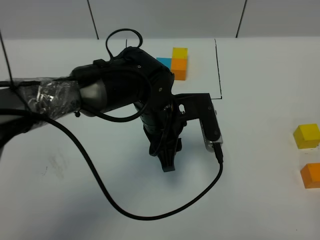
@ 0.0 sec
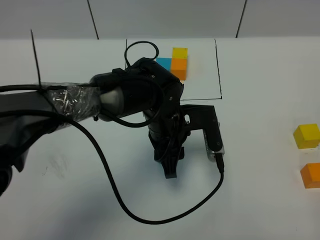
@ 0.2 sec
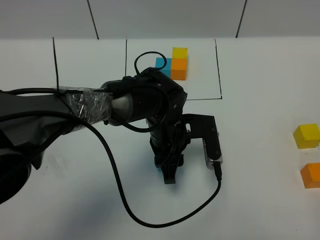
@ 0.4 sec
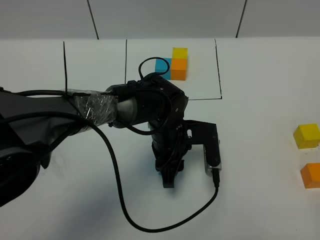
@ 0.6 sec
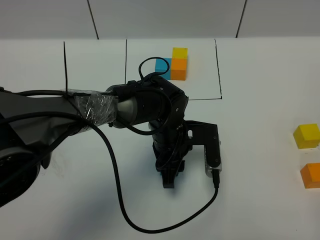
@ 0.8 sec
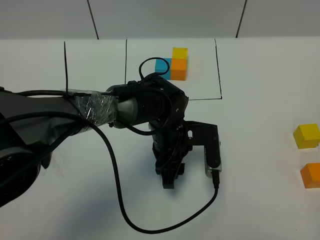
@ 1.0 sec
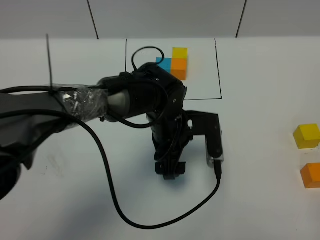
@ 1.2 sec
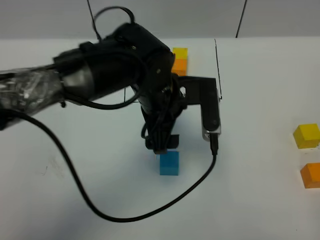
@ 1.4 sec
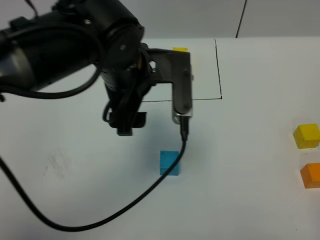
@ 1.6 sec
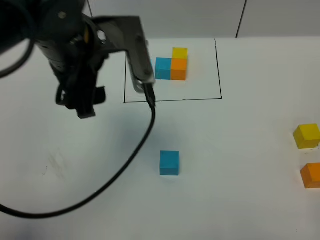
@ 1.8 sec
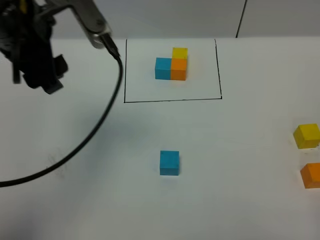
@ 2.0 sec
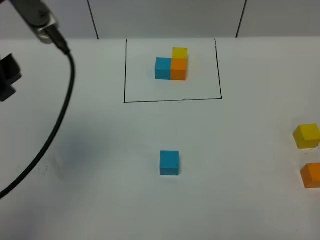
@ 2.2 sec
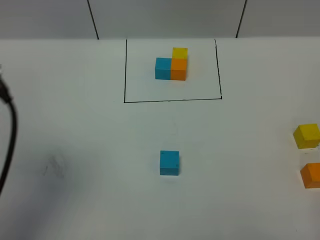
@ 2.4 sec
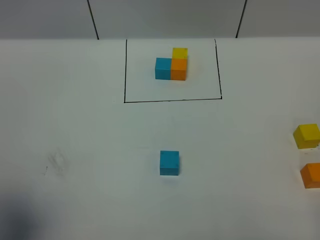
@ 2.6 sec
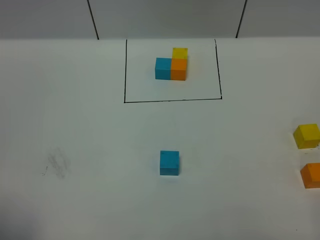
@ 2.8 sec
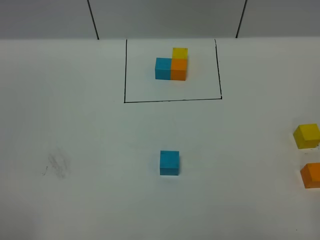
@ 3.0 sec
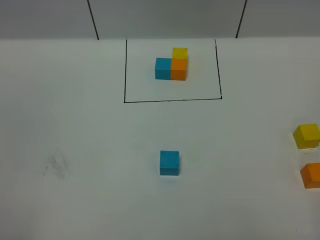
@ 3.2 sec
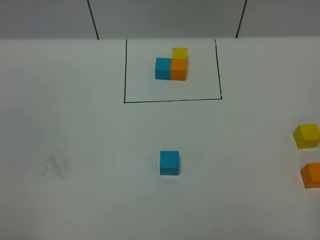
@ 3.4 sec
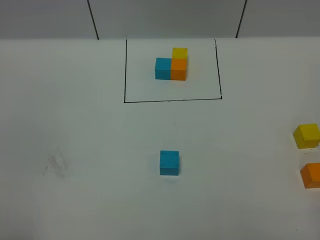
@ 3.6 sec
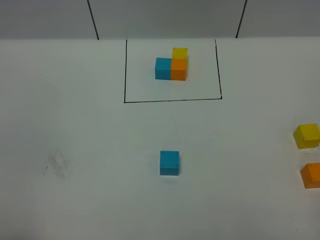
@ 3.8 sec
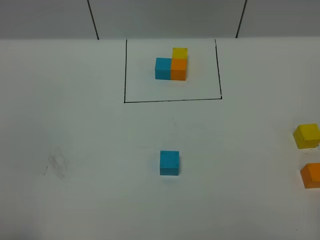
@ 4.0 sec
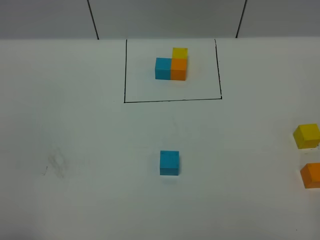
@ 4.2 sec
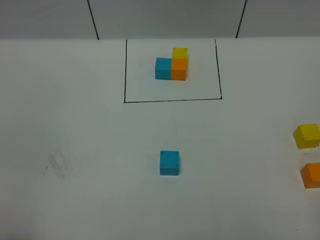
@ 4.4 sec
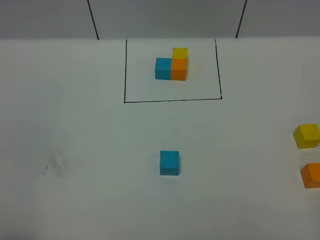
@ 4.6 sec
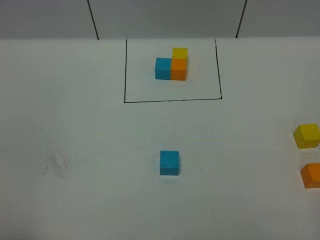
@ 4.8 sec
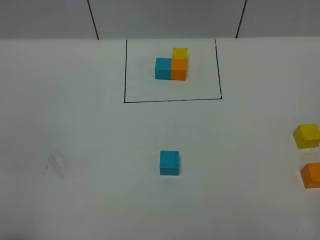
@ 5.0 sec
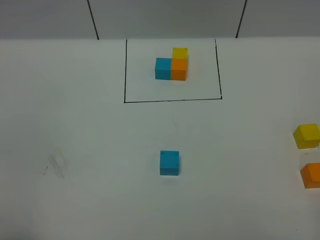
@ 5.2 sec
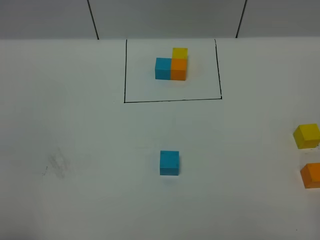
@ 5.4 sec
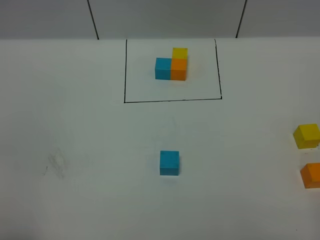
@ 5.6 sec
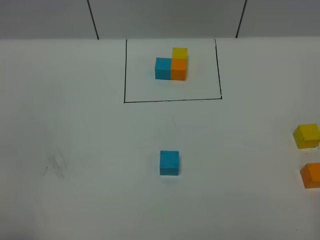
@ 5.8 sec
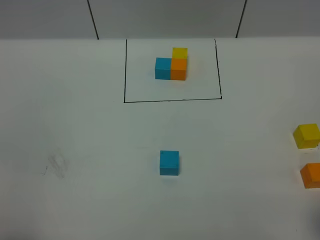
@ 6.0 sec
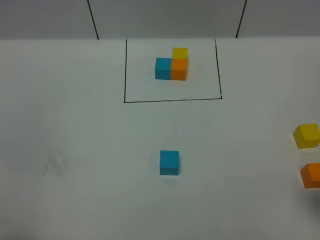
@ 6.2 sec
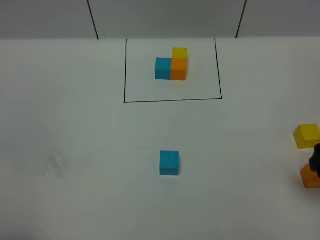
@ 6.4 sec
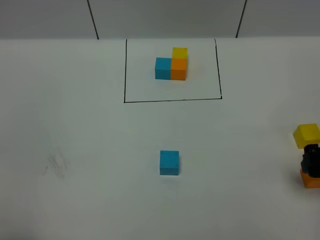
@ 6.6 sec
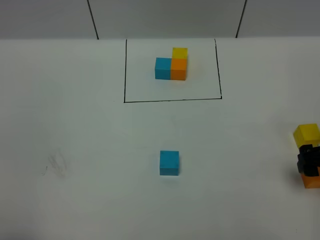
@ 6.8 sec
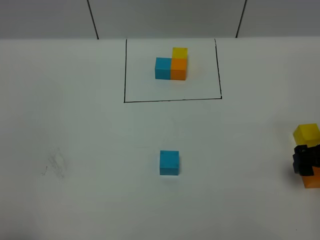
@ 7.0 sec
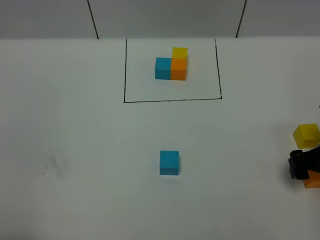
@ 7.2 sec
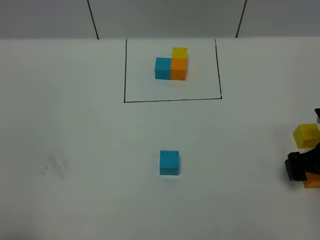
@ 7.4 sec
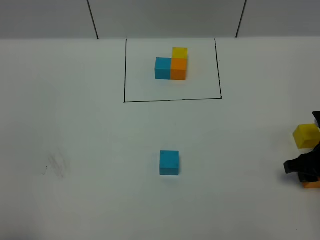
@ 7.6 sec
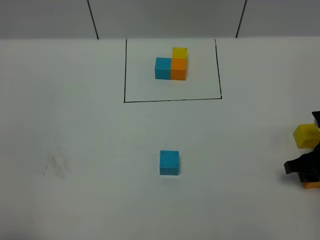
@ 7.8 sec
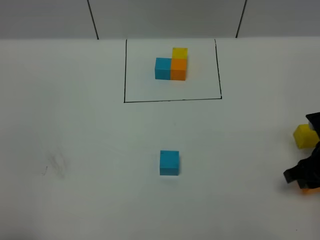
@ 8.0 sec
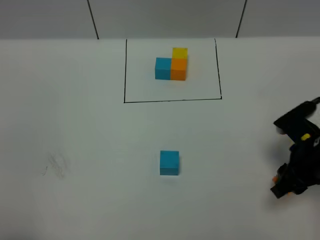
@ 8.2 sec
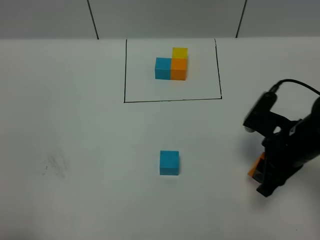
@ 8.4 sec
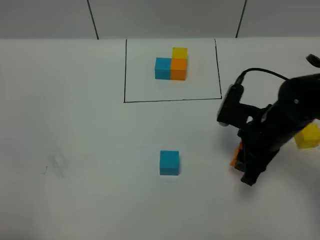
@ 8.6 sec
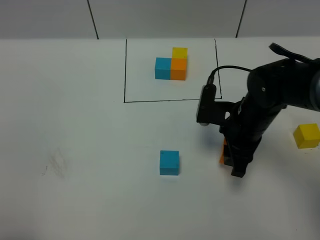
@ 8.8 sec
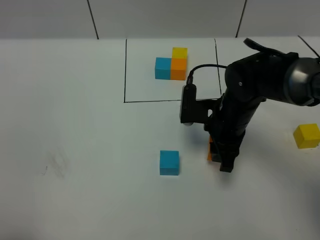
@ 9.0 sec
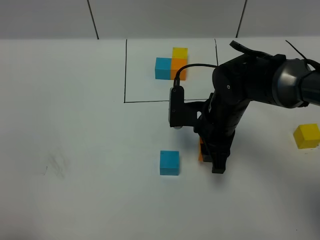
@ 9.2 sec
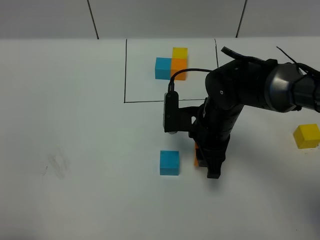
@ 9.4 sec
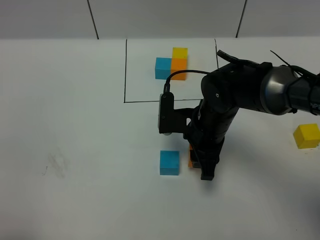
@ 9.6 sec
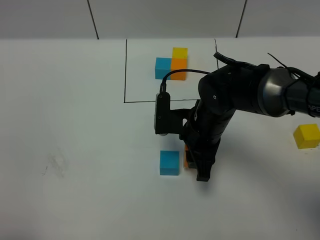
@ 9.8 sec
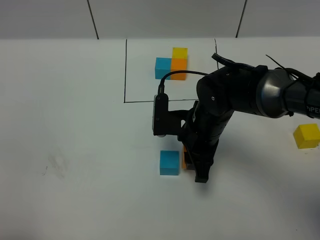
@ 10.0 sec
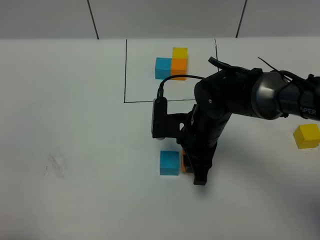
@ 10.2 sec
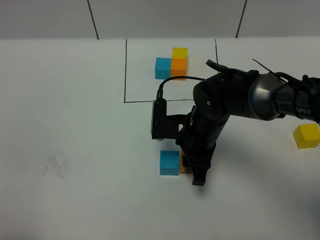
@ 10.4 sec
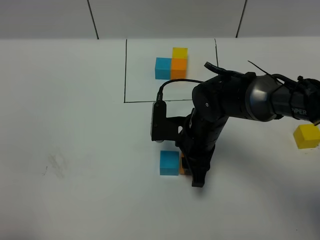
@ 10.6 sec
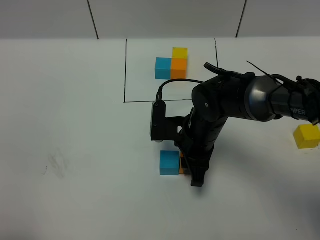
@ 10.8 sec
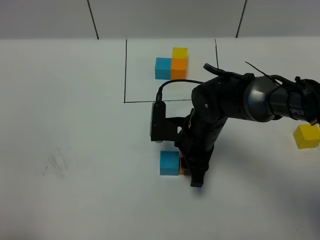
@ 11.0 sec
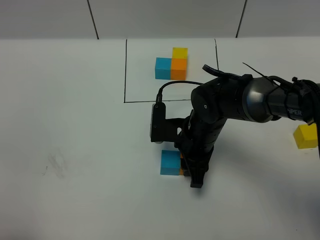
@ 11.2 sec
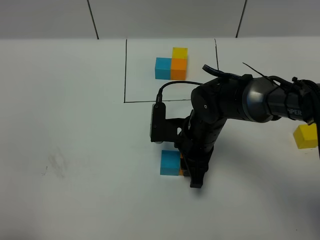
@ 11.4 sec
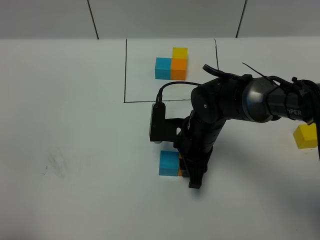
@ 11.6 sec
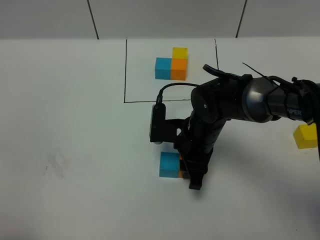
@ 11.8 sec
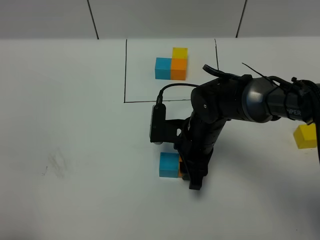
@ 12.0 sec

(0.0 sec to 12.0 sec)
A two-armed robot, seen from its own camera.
Task of the whole recording: According to the building block template in front, assemble the scattered blocks together.
0.0 sec - 1.6 sec: The left gripper shifts some 15 cm upward and to the left, and opens up.
1.6 sec - 3.0 sec: The left gripper heads backward and to the left, covering some 40 cm.
6.0 sec - 7.6 sec: The right gripper shifts approximately 20 cm forward and downward, and closes.
7.6 sec - 9.0 sec: The right gripper travels to the left by approximately 20 cm.
9.0 sec - 10.4 sec: The right gripper moves roughly 5 cm.
10.4 sec - 12.0 sec: The two grippers keep their place.

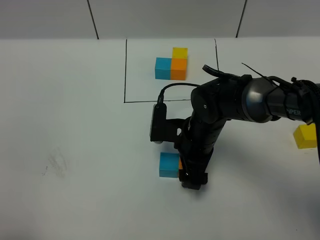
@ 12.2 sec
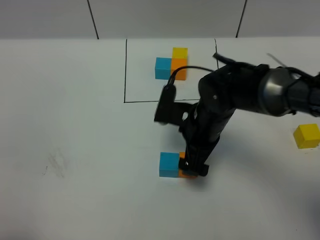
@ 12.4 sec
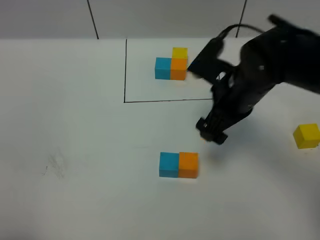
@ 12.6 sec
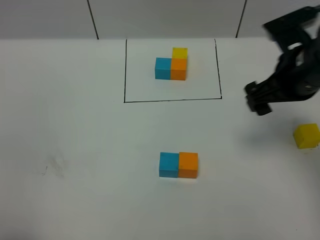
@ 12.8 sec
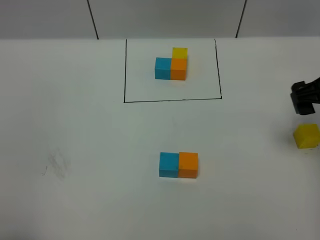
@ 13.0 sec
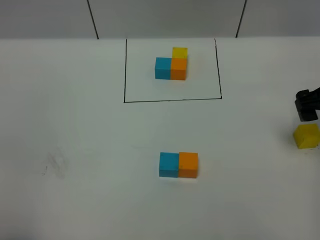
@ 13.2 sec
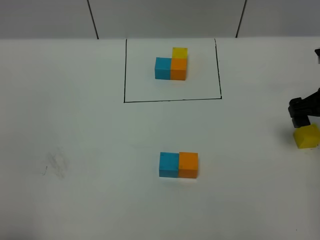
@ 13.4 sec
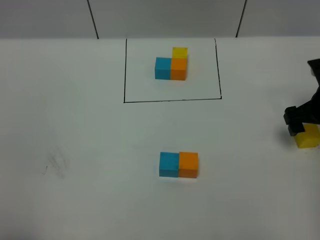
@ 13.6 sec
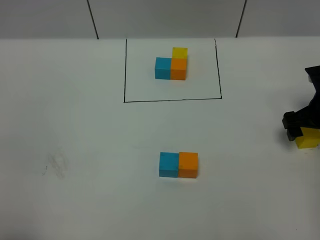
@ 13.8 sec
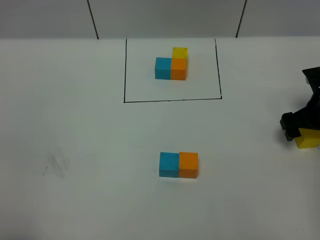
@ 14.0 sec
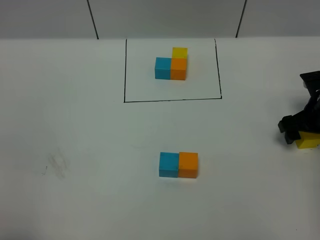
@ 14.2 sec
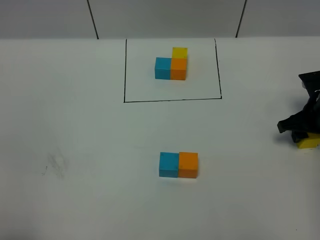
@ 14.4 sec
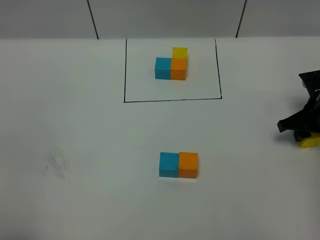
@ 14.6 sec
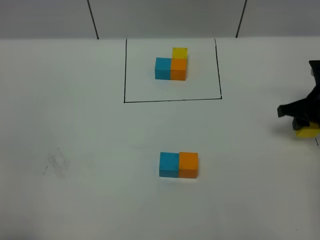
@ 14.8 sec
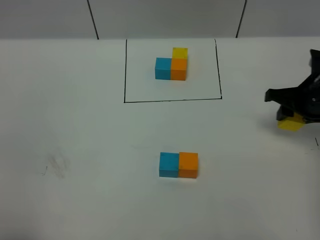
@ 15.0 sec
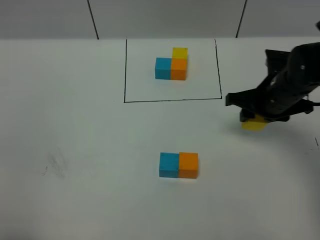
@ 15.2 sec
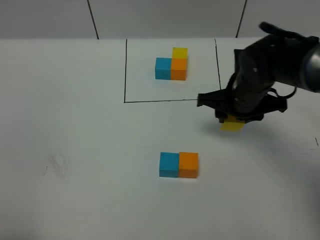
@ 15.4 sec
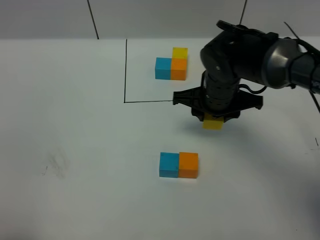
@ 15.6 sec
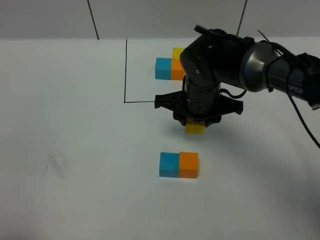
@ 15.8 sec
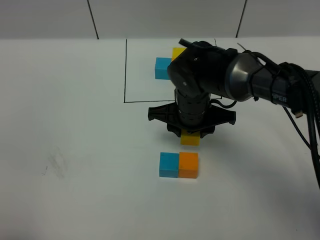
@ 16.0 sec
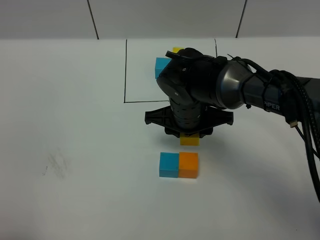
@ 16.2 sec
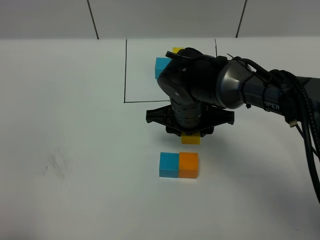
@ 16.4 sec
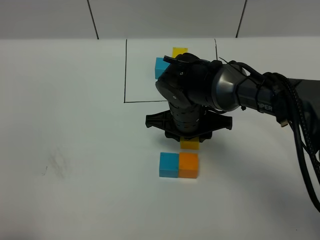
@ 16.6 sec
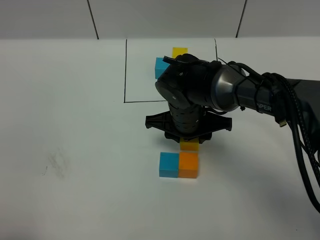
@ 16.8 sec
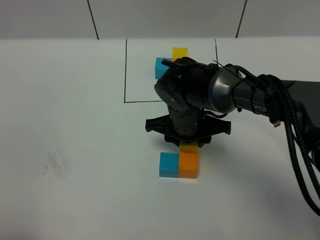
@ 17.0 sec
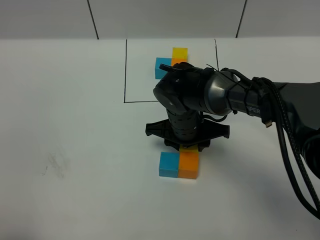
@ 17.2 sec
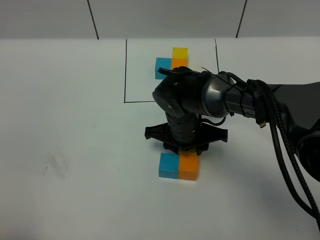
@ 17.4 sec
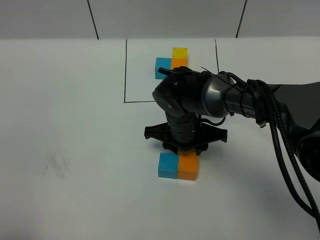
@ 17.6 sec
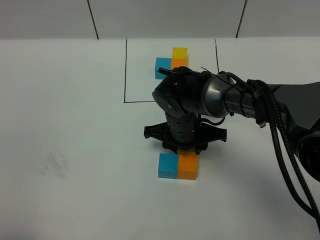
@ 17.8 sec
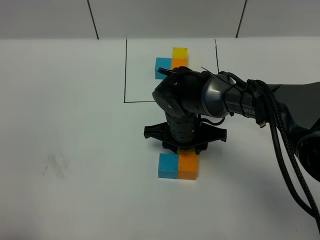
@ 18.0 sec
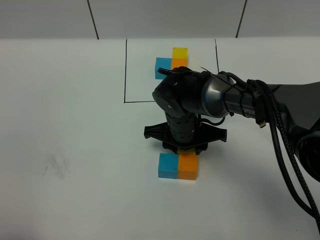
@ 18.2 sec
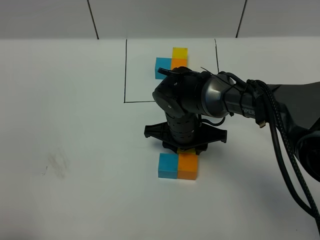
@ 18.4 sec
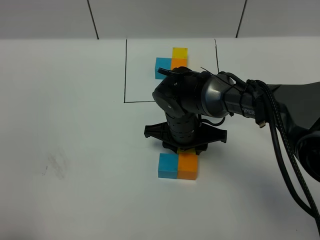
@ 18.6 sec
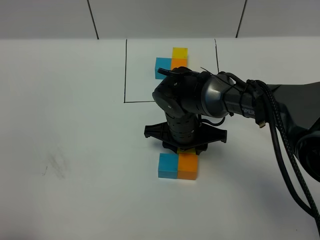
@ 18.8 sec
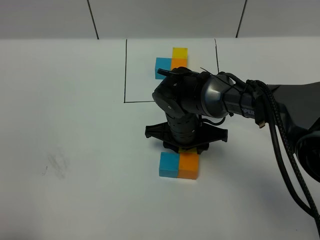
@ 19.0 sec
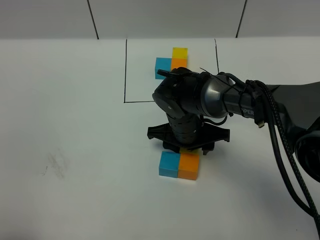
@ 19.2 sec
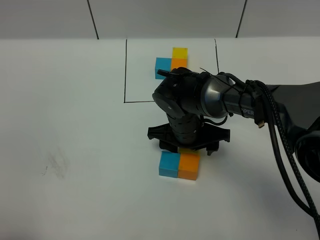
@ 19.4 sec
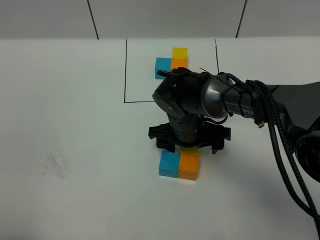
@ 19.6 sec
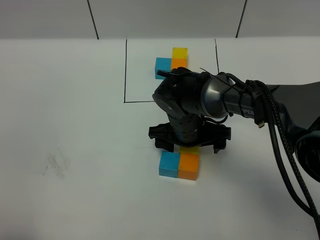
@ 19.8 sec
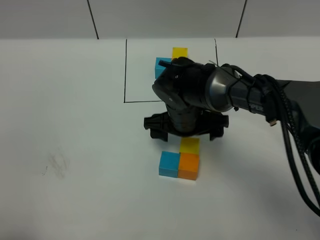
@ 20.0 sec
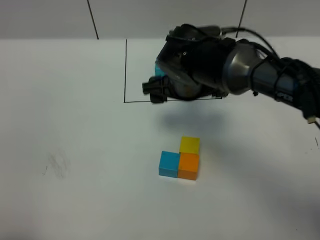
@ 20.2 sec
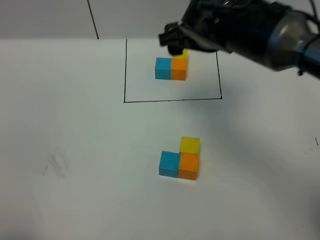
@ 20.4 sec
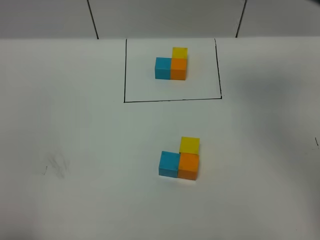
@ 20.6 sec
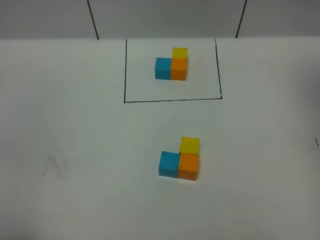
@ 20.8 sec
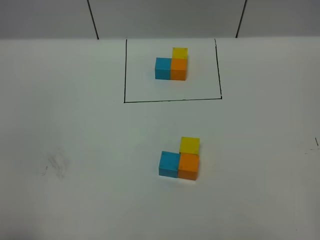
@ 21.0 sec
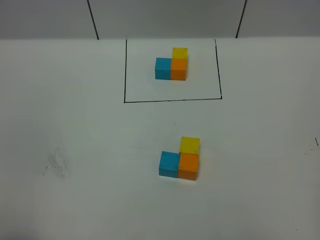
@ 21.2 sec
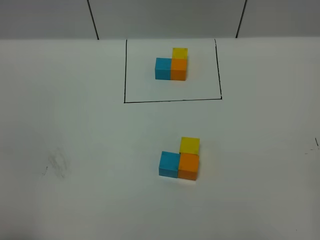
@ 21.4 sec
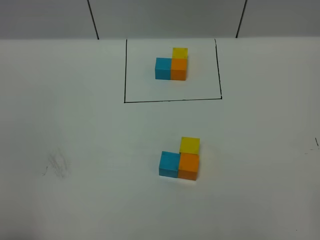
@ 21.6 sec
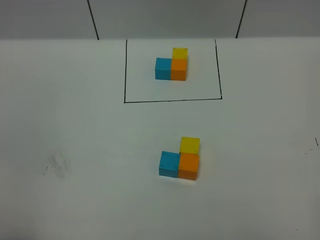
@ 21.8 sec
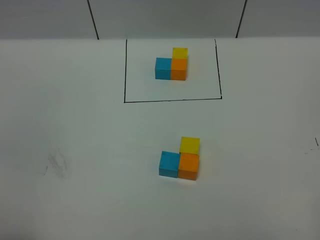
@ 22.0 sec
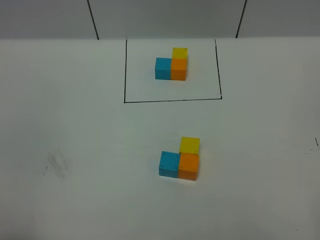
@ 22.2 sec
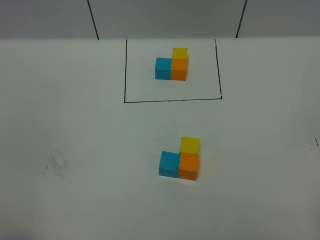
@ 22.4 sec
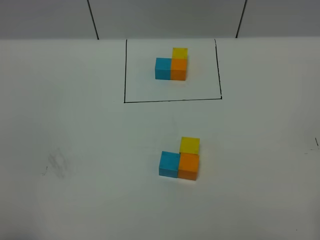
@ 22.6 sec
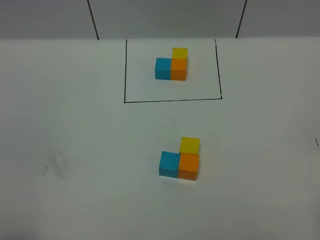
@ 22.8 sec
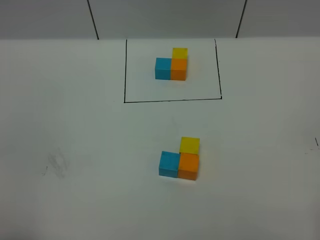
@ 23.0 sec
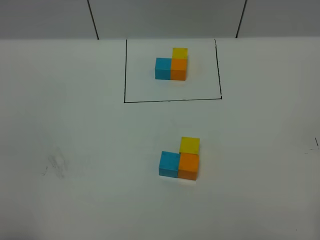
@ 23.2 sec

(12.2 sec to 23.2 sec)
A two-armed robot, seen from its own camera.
Task of the whole recording: According to the building block template in front, assemble the scattered blocks together.
Step, 12.8 sec - 20.4 sec: Put the yellow cube in the front of the orange cube.
12.2 sec - 13.8 sec: The right gripper moves to the right, approximately 25 cm.
13.8 sec - 15.4 sec: The right gripper travels to the left by some 20 cm, and closes up.
15.4 sec - 17.0 sec: The right gripper heads to the left, covering some 10 cm.
17.0 sec - 18.4 sec: There are only small adjustments of the grippers.
18.4 sec - 20.0 sec: The right gripper opens its fingers.
20.0 sec - 21.6 sec: The right gripper goes about 60 cm backward, to the right and upward.
